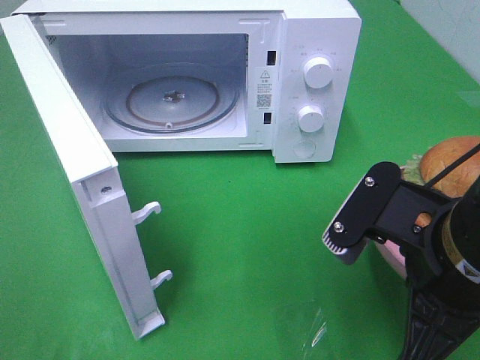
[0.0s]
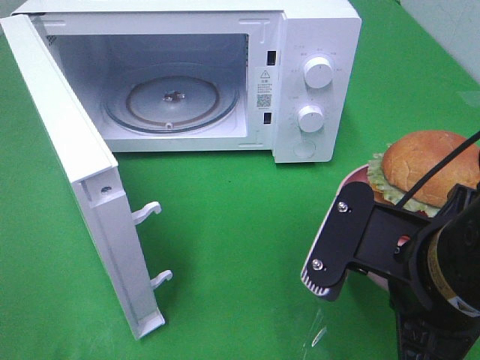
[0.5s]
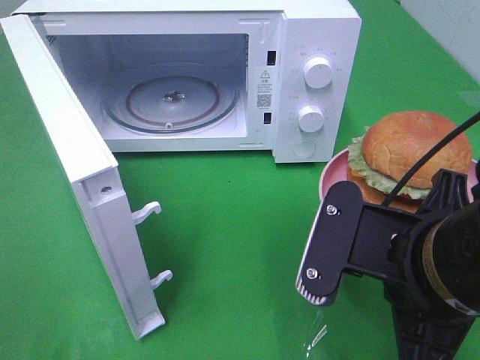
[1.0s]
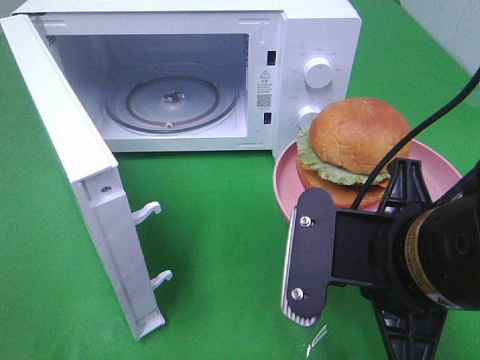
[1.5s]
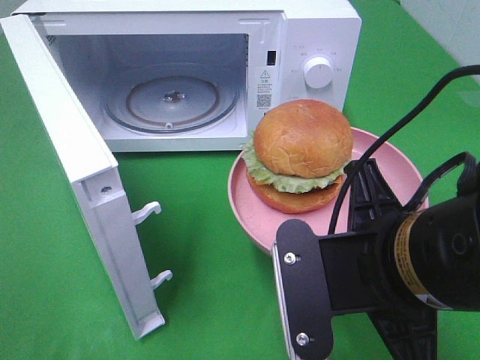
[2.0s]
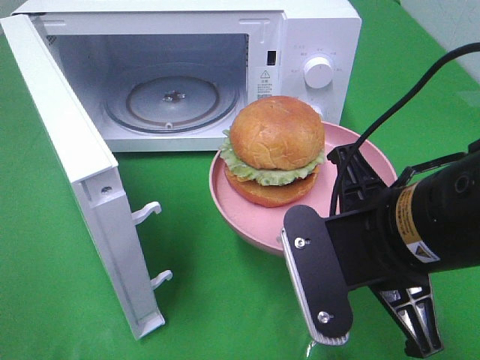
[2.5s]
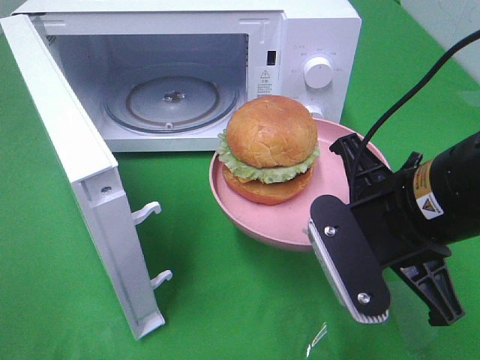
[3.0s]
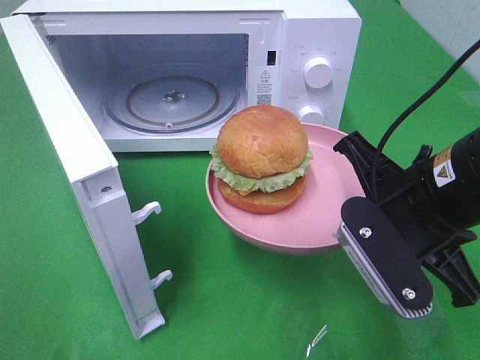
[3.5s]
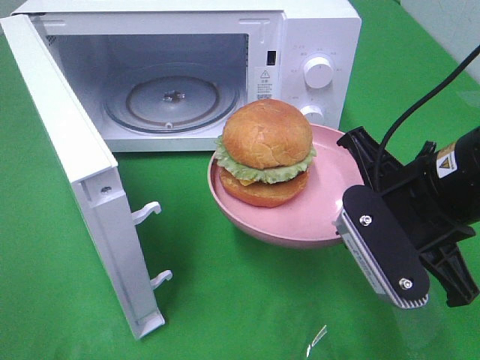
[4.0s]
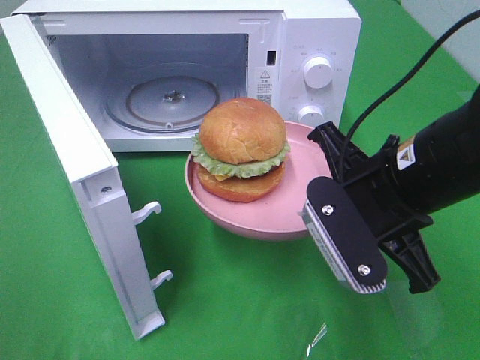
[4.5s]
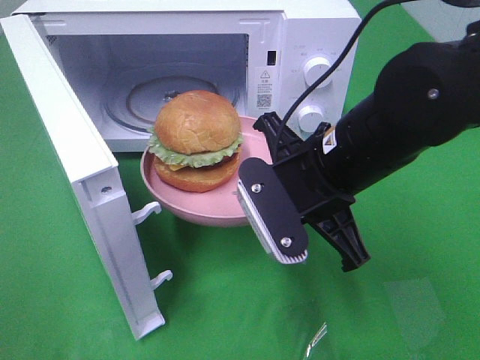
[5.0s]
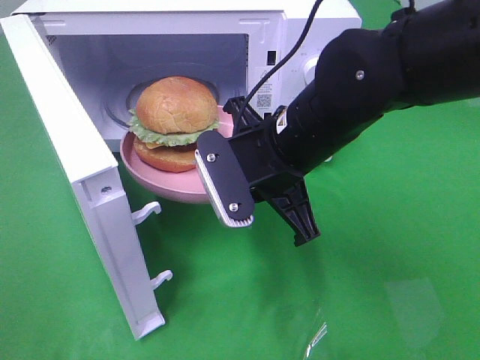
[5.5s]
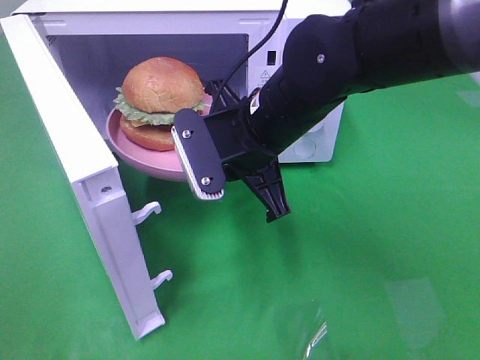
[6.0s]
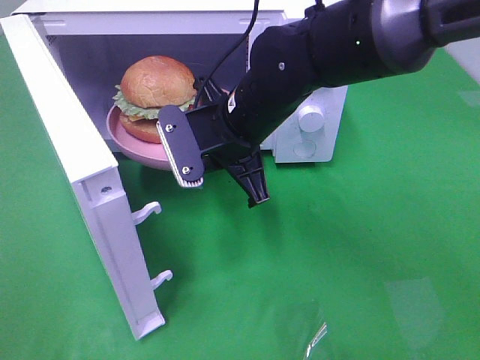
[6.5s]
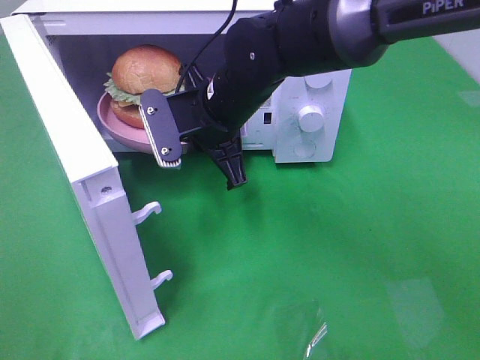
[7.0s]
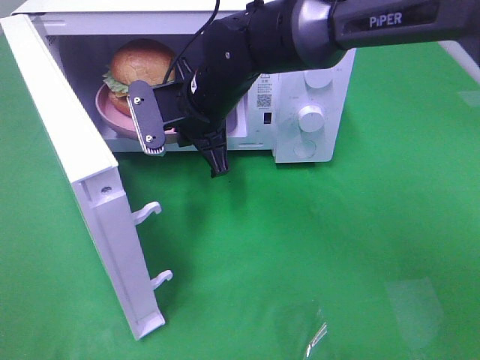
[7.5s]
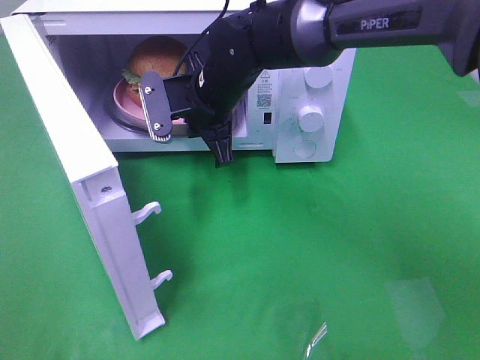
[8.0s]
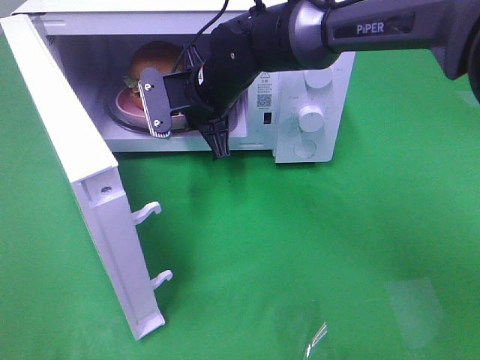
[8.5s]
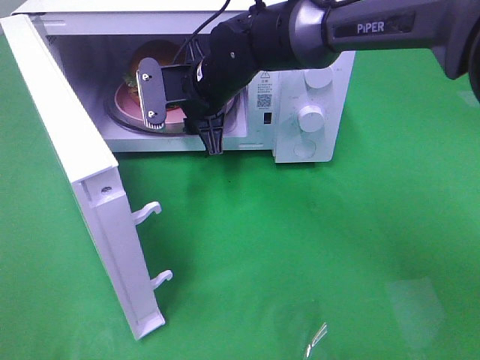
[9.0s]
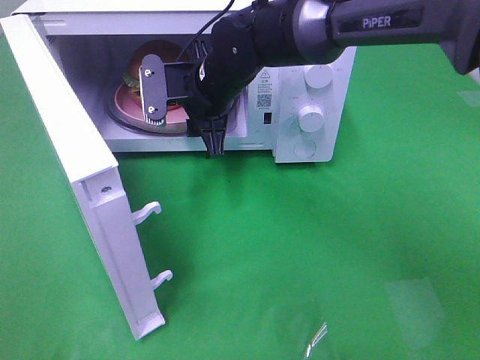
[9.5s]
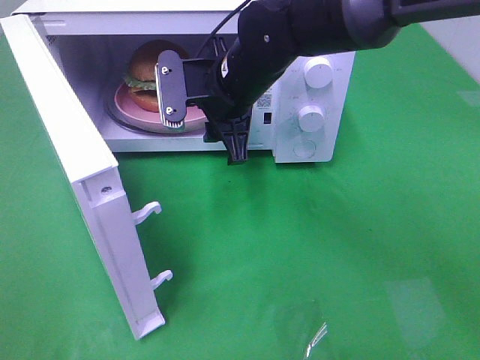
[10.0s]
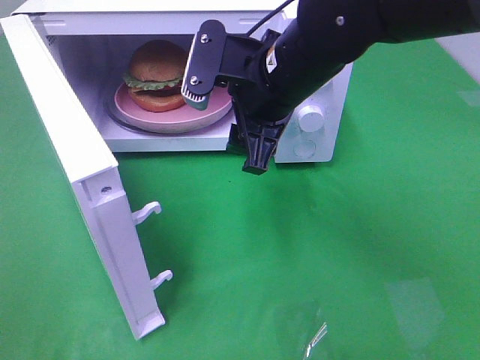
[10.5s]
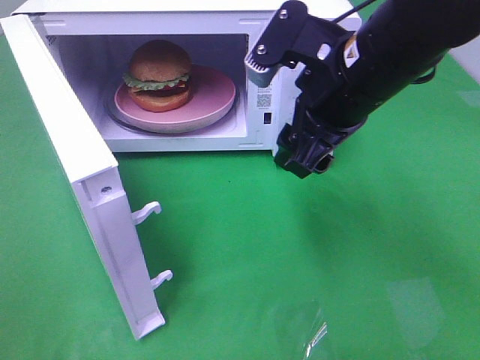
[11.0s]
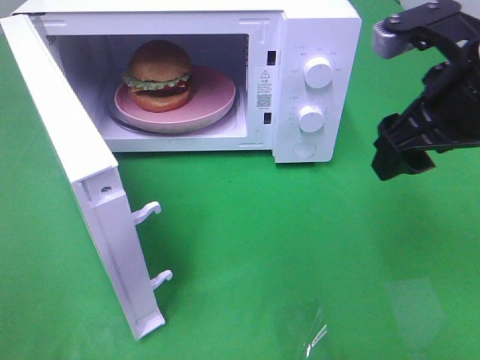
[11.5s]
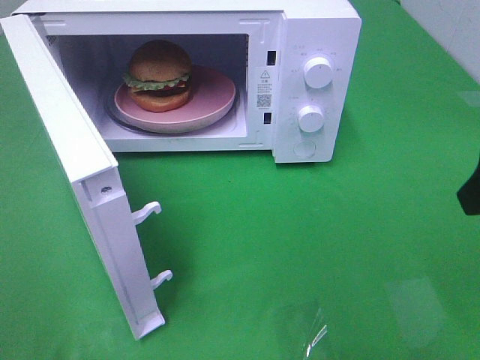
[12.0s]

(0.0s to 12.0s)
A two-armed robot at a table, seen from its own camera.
Task of the whole recording: Heat the burger.
Step, 0.0s - 9.0s: Right hand: place the plate in the microwave.
2.0s - 4.0s: The right gripper heads forward and to the right, covering approximately 10 cm.
4.0s - 6.0s: The right gripper travels to the left and forward by approximately 15 cm.
6.0s - 8.0s: The right gripper heads forward and to the left, covering approximately 10 cm.
8.0s - 10.0s: The right gripper opens its fingers.
10.0s - 12.0s: The right gripper shifts about 30 cm to the right and backward.

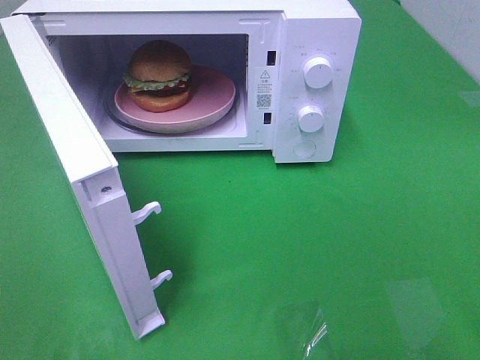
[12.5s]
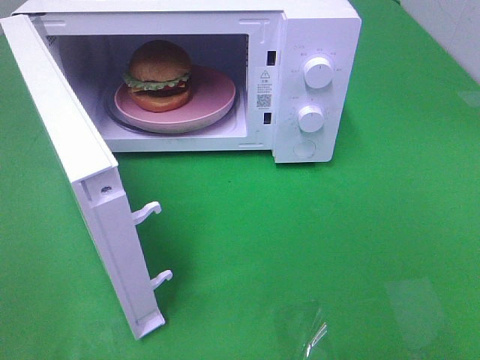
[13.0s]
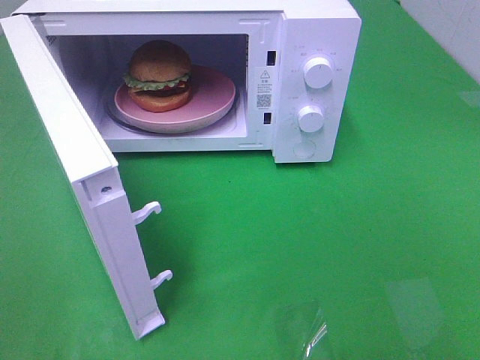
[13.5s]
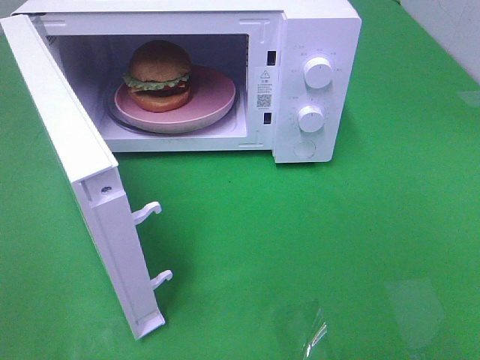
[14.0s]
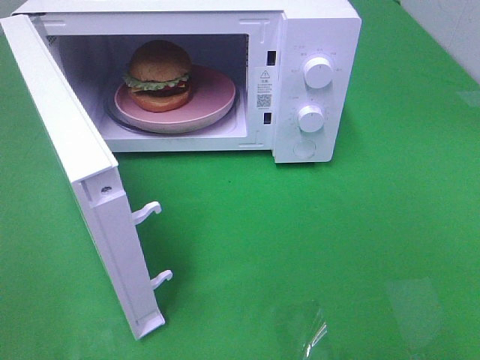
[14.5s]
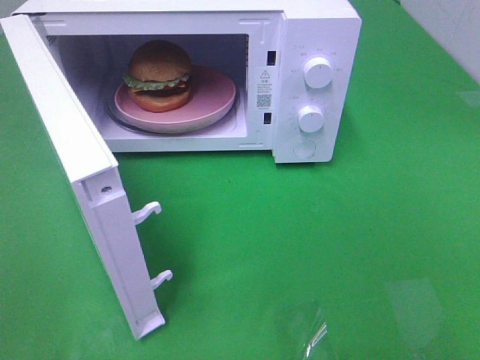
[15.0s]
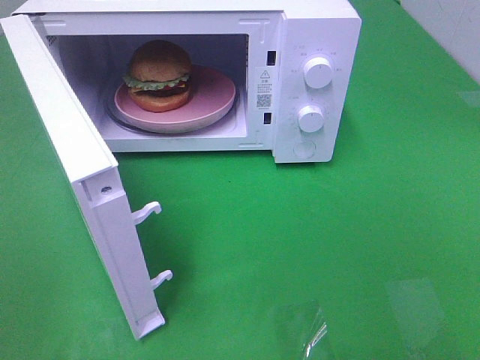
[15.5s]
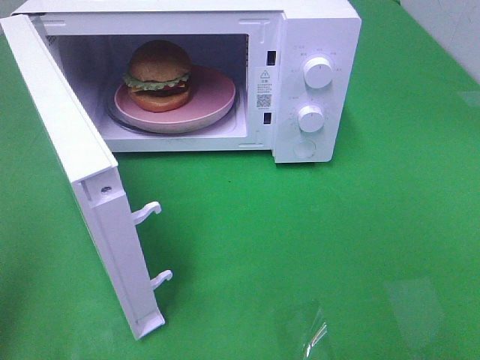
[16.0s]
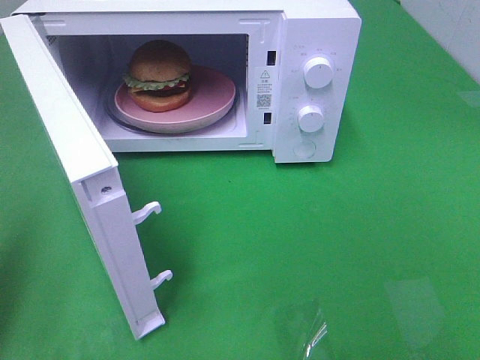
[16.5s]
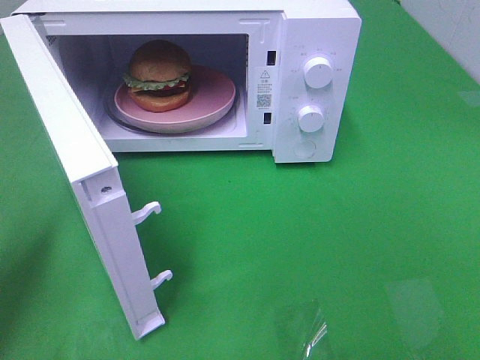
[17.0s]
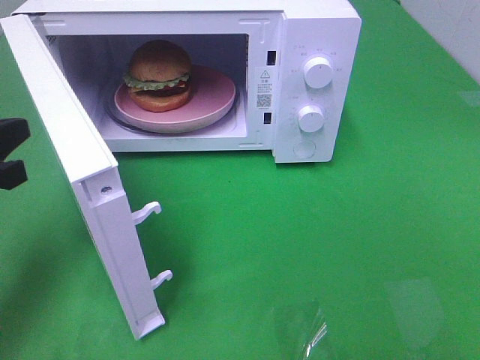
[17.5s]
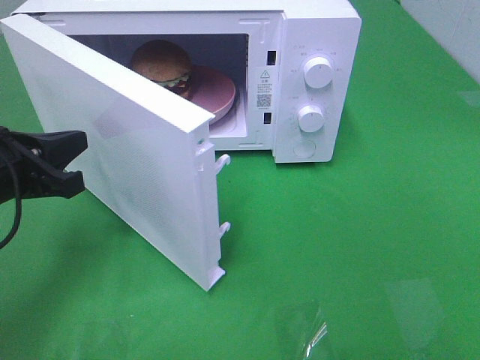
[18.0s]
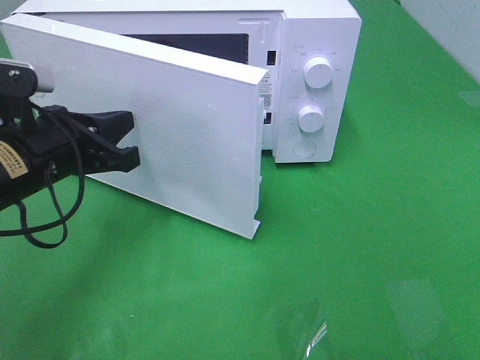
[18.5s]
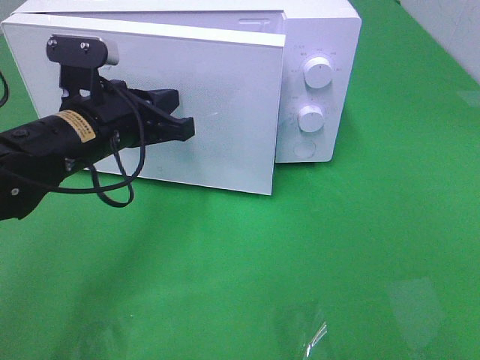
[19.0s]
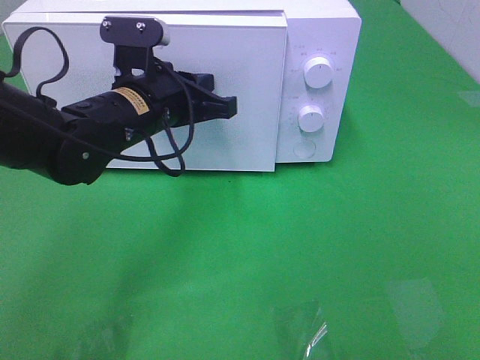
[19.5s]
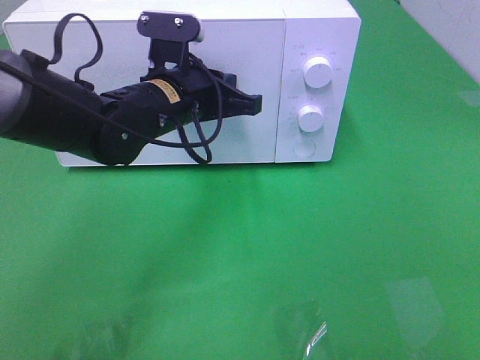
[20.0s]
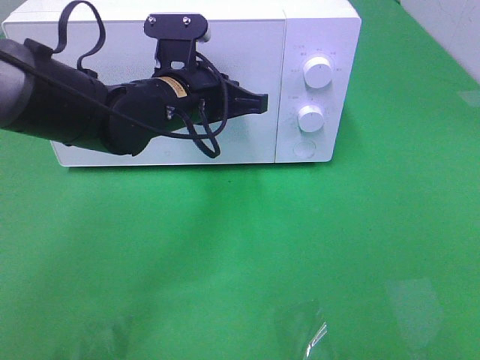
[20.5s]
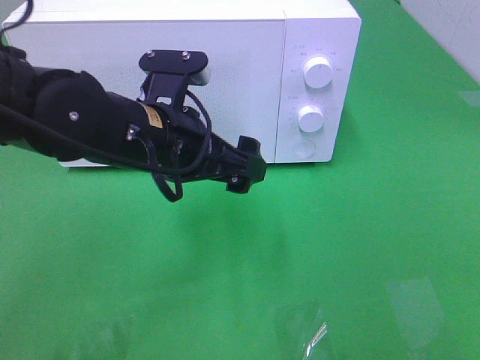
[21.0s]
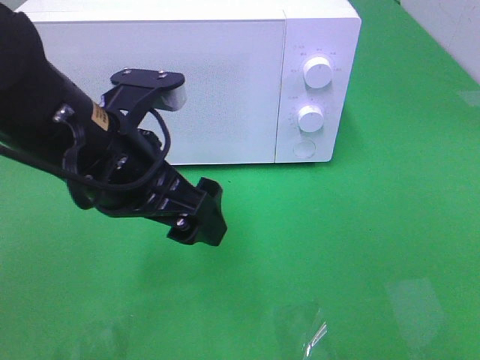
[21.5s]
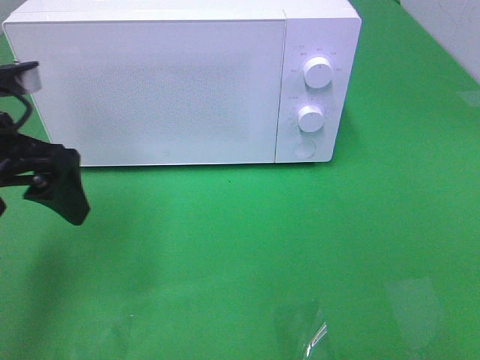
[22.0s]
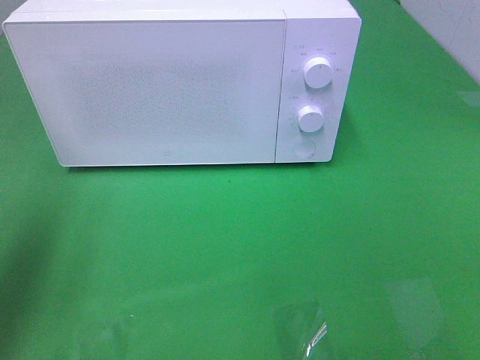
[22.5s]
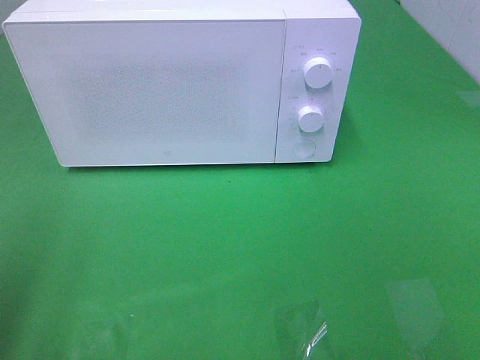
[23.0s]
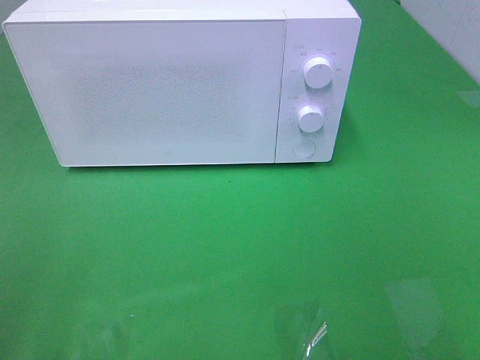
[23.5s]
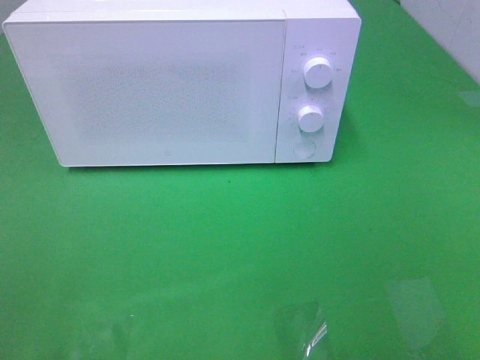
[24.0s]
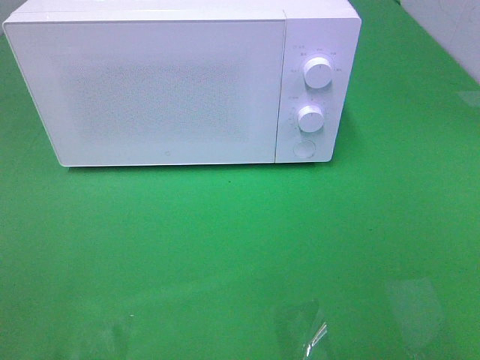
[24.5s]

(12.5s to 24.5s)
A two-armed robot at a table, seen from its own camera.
Task of the whole recording: Heat the burger.
Step, 12.5s - 20.5s: Left hand: close the microwave door.
14.5s - 16.5s: The left gripper shifts approximately 15 cm forward, and closes up.
16.5s - 18.5s: The left gripper shifts about 20 cm to the right, forward and downward.
18.5s - 20.5s: The left gripper shifts about 15 cm to the right and forward.
20.5s - 22.5s: The left gripper moves to the left, backward and upward, some 30 cm, and opens its fingers.
22.5s - 24.5s: The left gripper heads backward, covering some 20 cm.

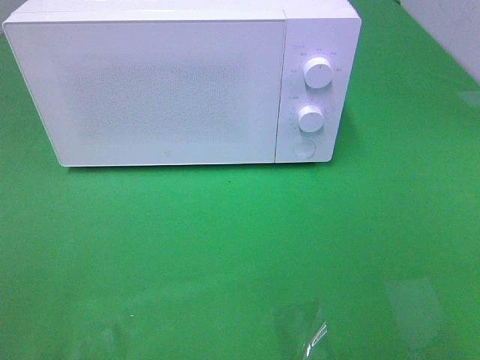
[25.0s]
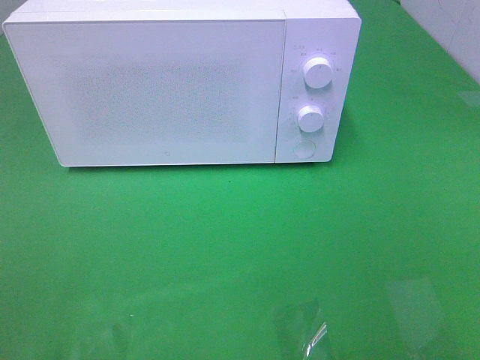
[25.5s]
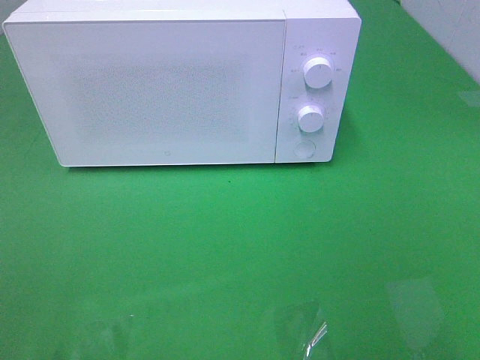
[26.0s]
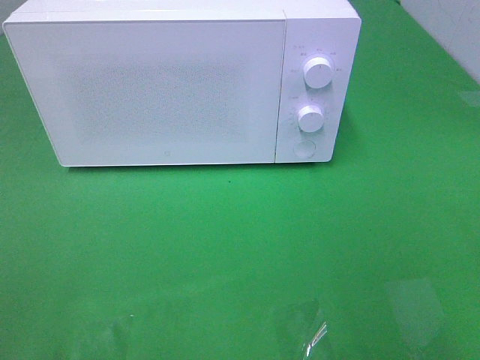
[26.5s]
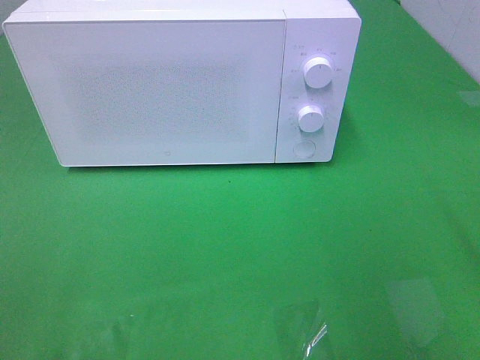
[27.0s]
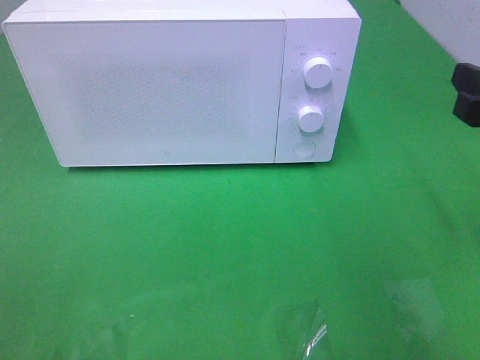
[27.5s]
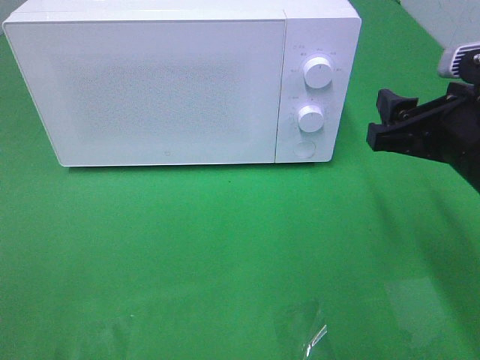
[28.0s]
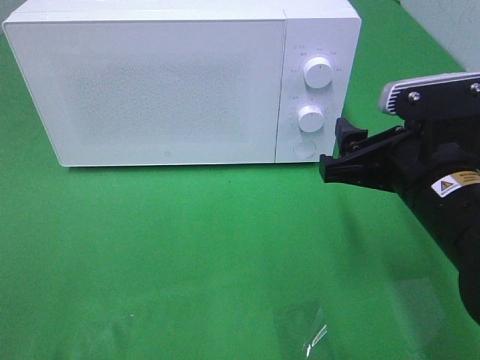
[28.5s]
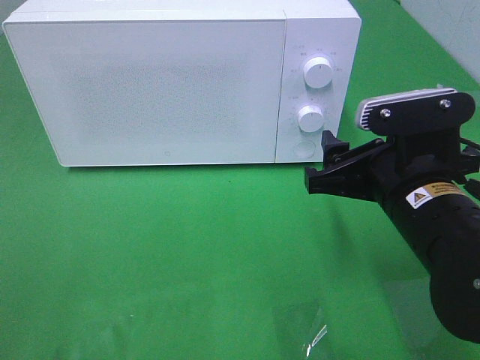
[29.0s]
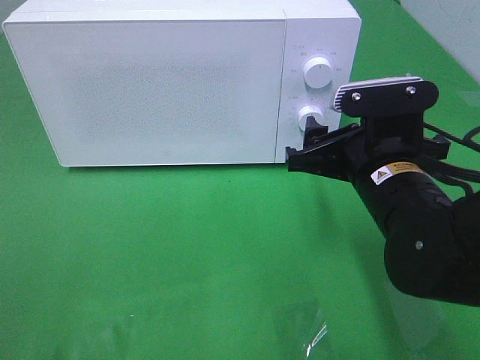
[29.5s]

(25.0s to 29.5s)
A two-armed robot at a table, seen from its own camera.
Task of the whole recording: Heat the burger.
27.0s - 29.5s: The right gripper goes roughly 20 cm to the left, downward and forward.
